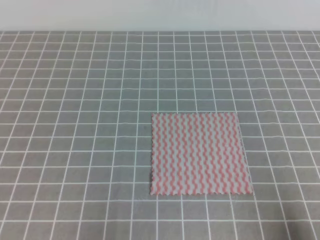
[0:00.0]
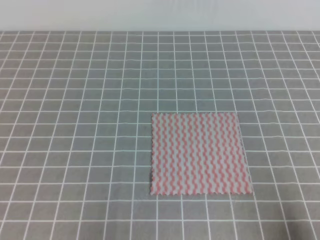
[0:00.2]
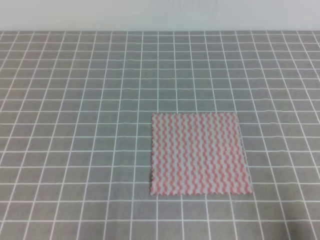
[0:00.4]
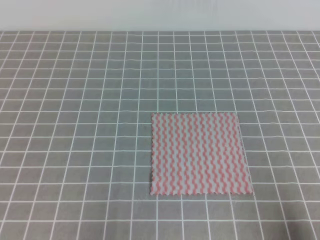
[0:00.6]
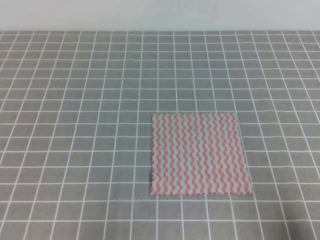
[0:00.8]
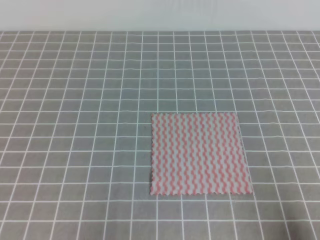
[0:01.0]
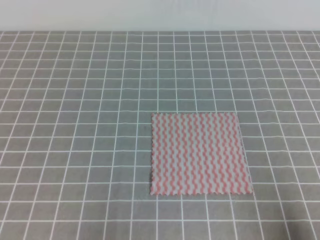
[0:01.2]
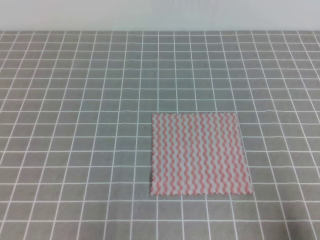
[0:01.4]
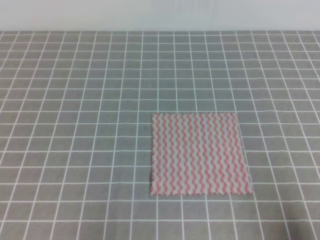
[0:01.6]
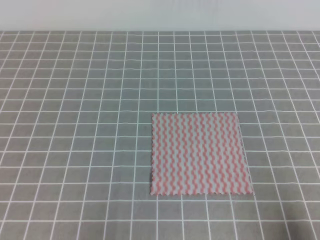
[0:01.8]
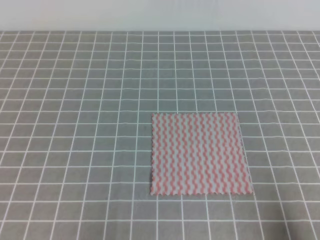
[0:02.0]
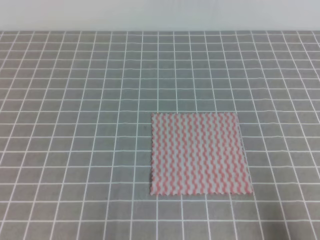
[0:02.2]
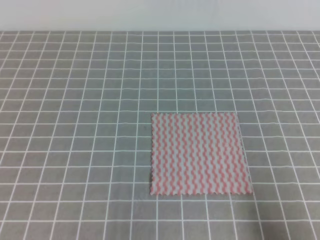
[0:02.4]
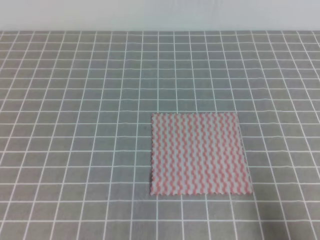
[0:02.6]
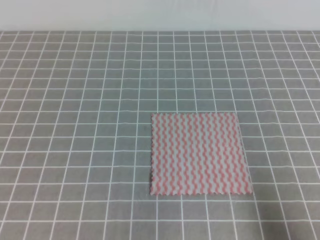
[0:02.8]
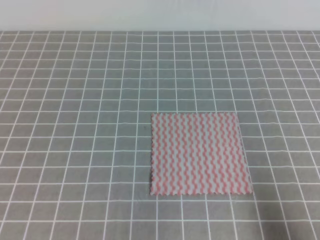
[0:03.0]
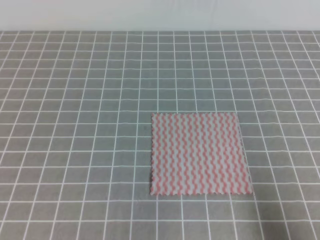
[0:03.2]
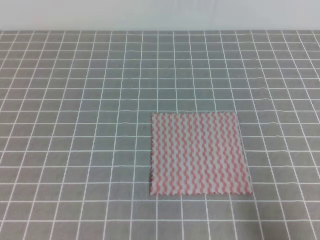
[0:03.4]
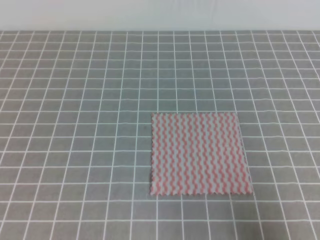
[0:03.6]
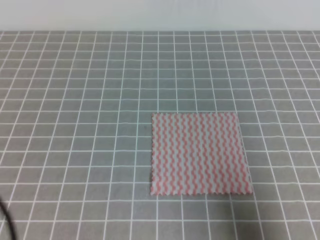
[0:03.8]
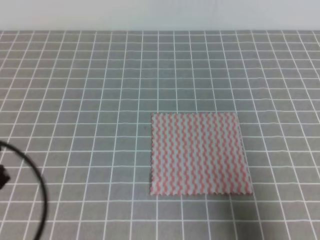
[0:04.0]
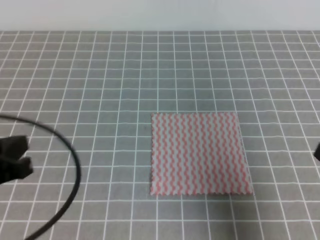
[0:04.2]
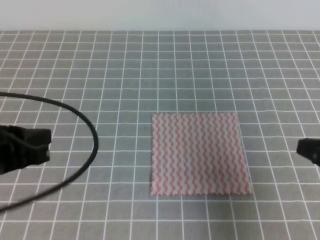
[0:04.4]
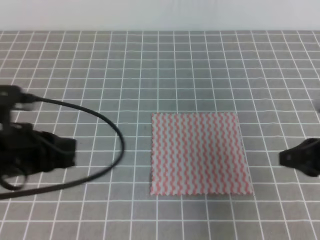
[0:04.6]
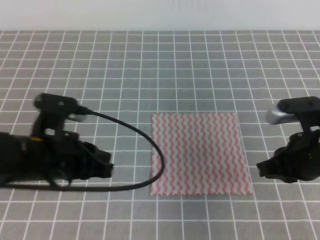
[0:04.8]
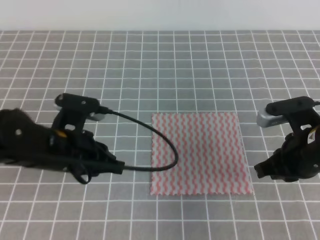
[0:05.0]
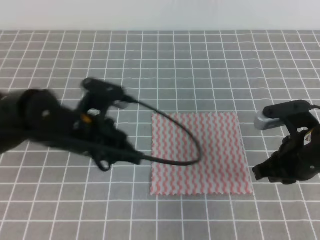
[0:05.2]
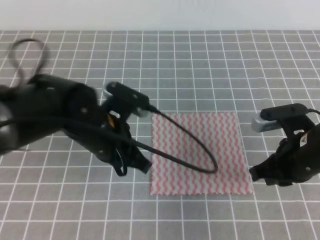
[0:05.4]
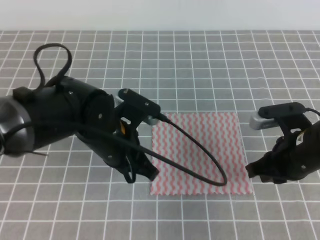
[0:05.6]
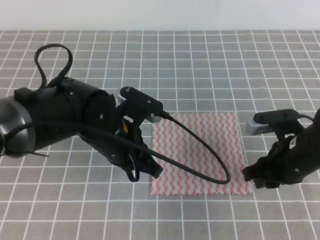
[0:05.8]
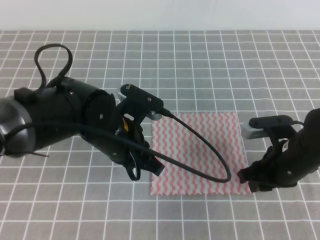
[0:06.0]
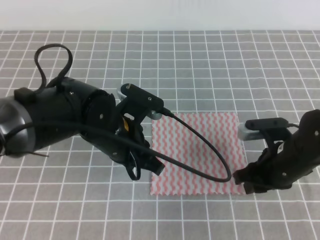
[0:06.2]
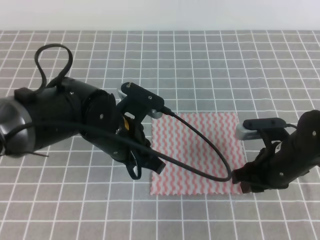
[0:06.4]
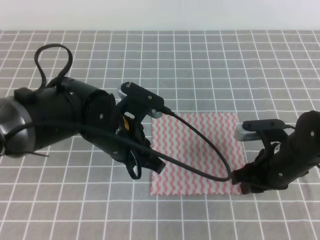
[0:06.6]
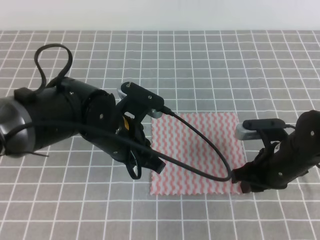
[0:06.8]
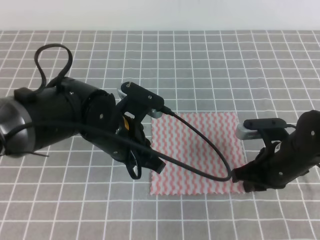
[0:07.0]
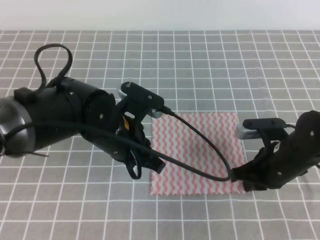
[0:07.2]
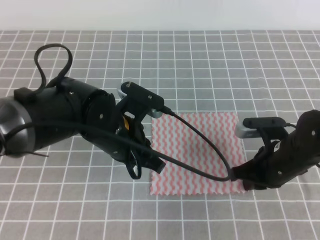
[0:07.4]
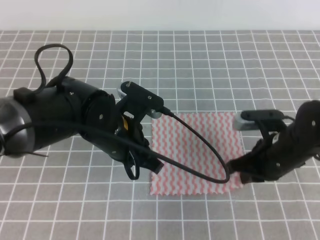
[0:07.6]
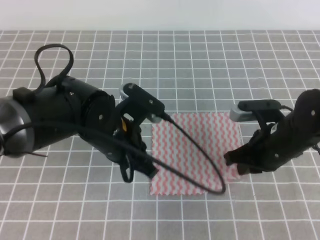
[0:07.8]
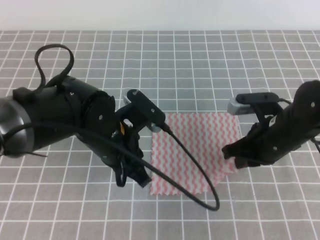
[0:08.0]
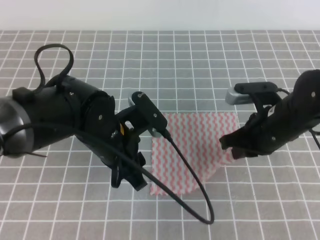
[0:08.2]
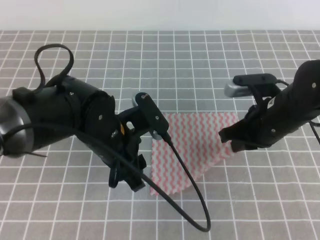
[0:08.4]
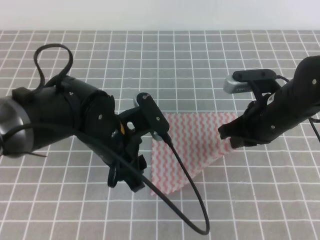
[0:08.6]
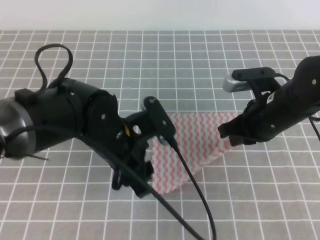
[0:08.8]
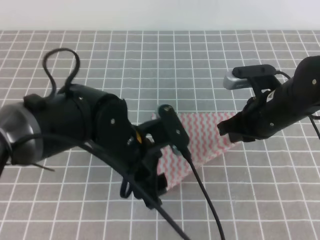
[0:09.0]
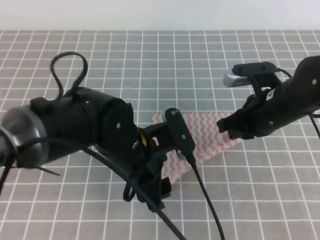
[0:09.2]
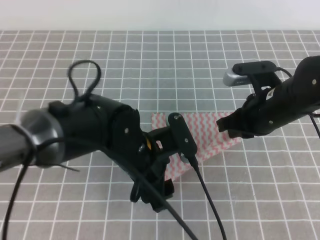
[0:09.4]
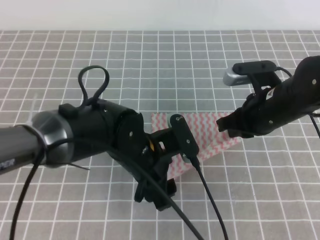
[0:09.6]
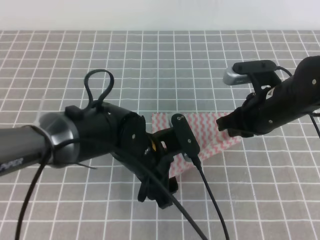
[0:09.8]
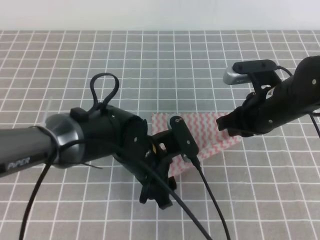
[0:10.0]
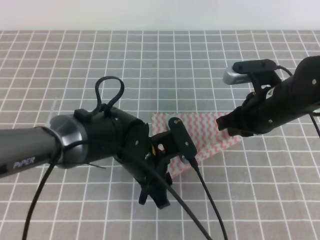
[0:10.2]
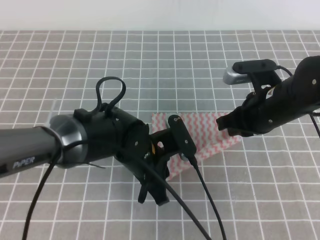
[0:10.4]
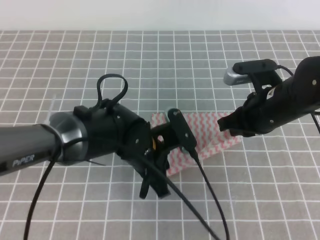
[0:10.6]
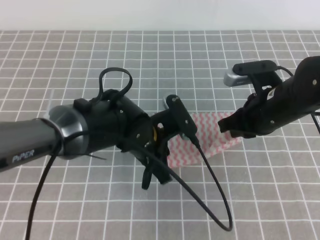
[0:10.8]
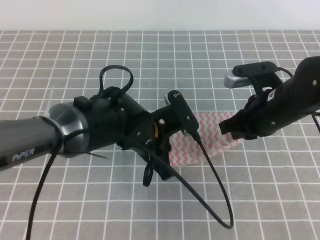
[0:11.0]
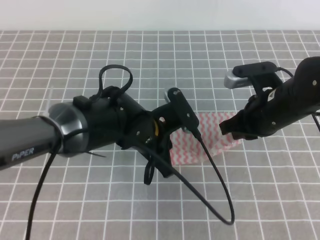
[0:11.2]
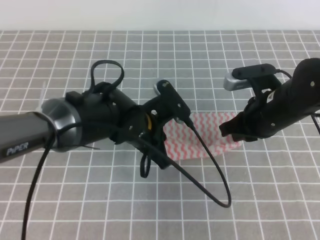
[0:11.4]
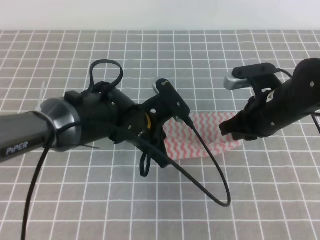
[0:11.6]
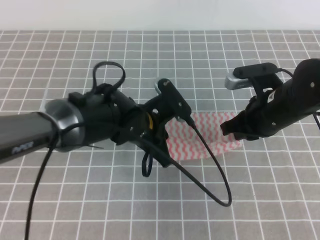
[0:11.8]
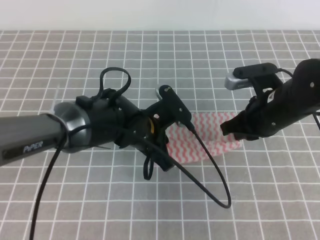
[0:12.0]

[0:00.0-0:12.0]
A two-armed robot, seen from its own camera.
0:00.0 to 0:01.6: Both grippers stay about where they are.
0:03.0 to 0:04.4: The two grippers go roughly 15 cm forward and upward.
0:04.4 to 0:06.0: The left gripper heads to the right and forward, covering approximately 20 cm. Meanwhile the right gripper moves forward, downward and to the left, about 15 cm, and opens.
0:06.0 to 0:07.6: The right gripper closes its fingers.
0:07.6 to 0:09.0: The right gripper moves upward, about 5 cm. The left gripper opens up.
0:09.0 to 0:10.4: The left gripper changes place by roughly 5 cm, and closes its fingers.
0:10.4 to 0:12.0: There are only small adjustments of the grippers.

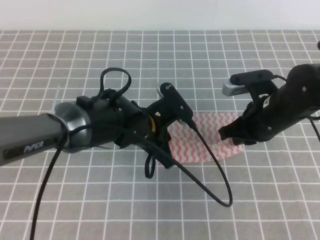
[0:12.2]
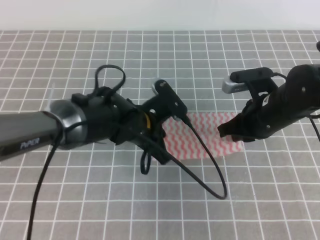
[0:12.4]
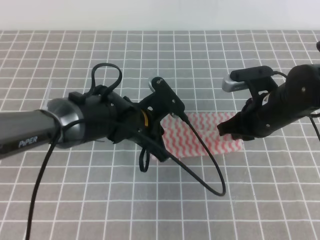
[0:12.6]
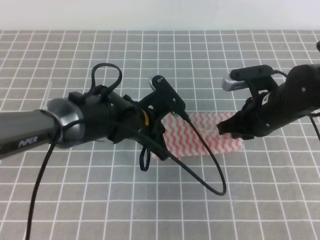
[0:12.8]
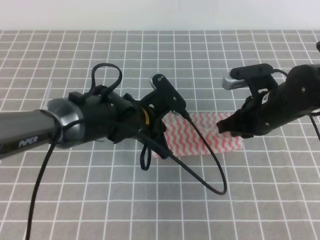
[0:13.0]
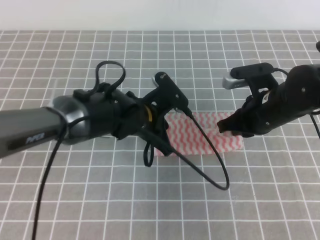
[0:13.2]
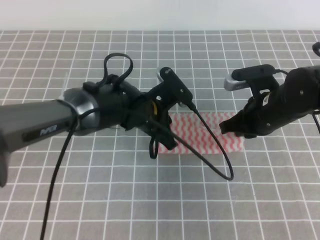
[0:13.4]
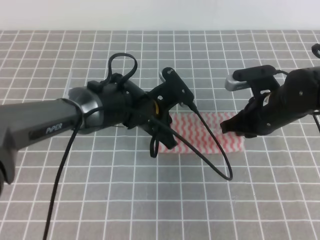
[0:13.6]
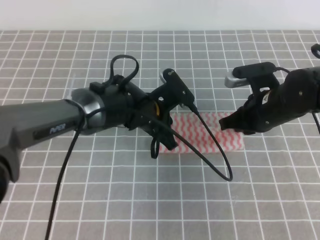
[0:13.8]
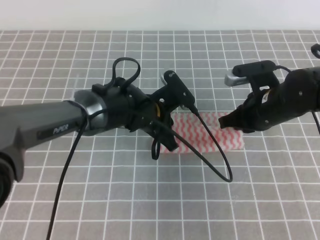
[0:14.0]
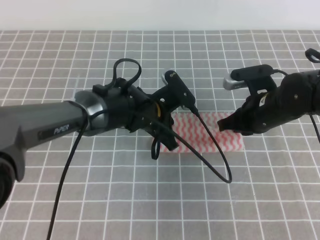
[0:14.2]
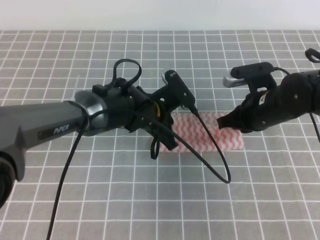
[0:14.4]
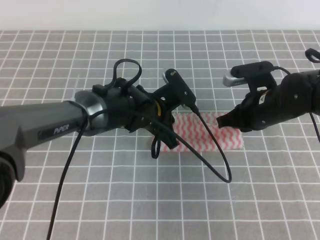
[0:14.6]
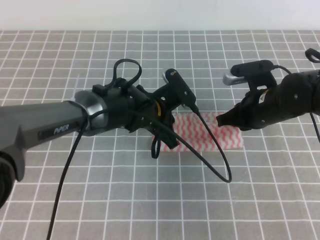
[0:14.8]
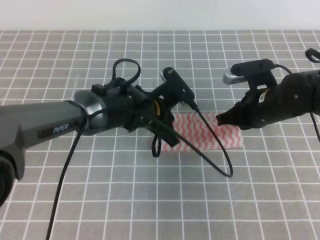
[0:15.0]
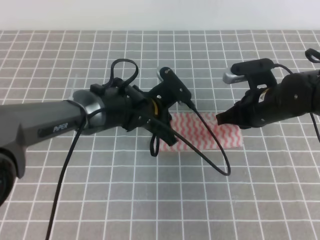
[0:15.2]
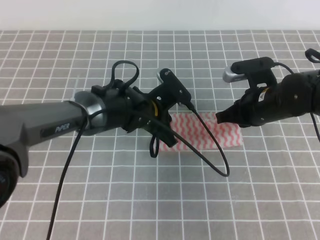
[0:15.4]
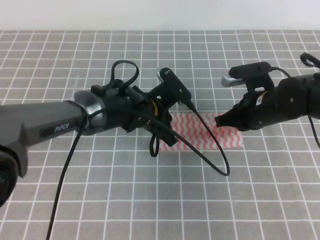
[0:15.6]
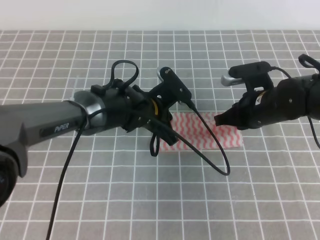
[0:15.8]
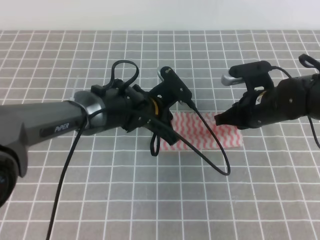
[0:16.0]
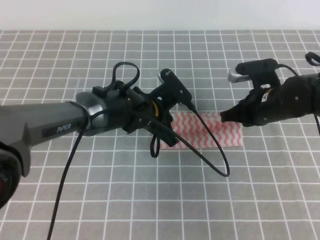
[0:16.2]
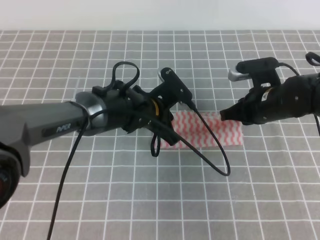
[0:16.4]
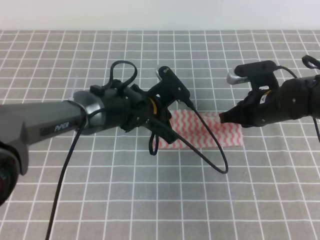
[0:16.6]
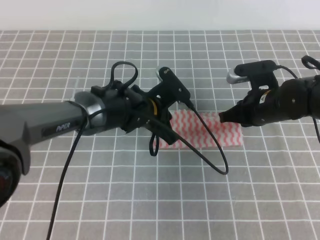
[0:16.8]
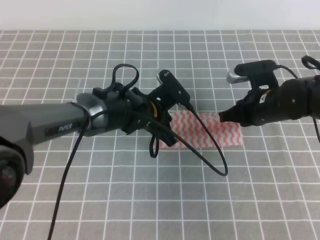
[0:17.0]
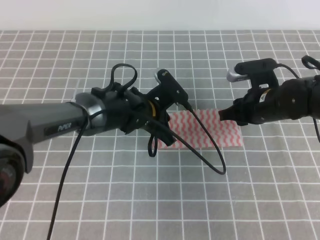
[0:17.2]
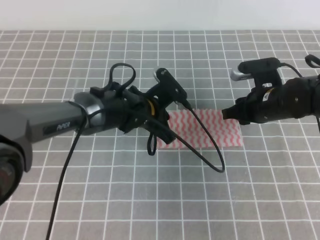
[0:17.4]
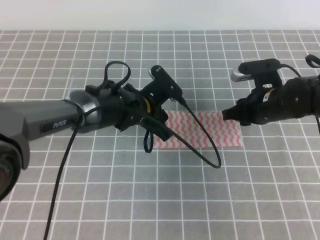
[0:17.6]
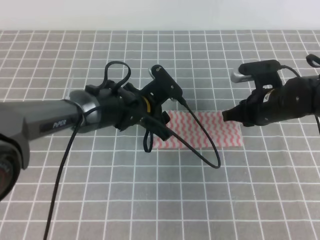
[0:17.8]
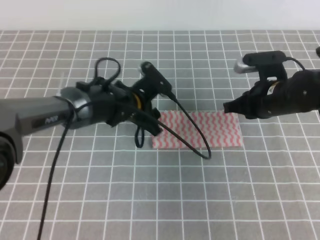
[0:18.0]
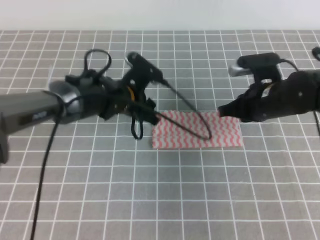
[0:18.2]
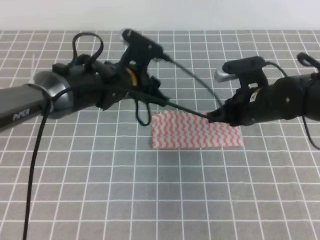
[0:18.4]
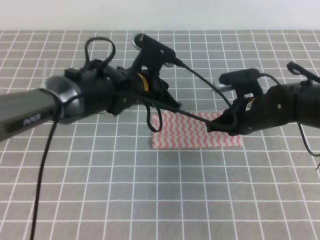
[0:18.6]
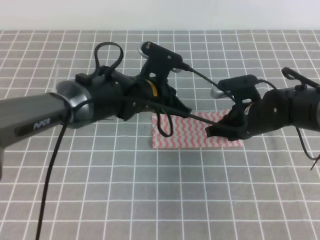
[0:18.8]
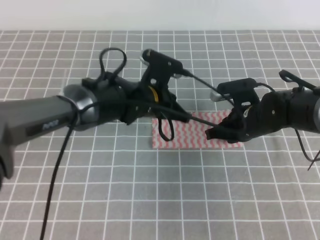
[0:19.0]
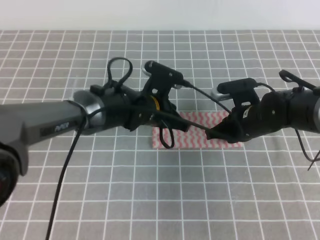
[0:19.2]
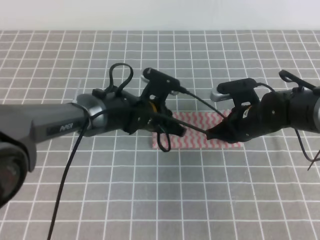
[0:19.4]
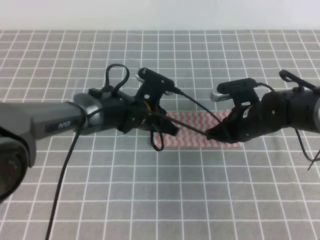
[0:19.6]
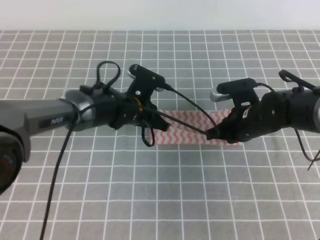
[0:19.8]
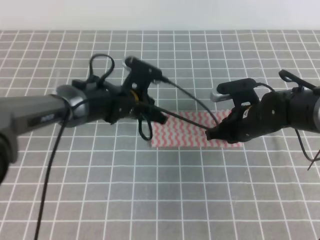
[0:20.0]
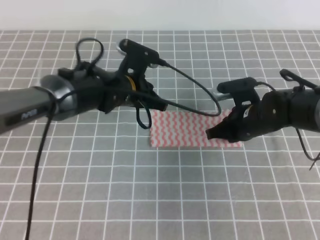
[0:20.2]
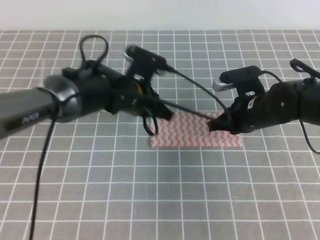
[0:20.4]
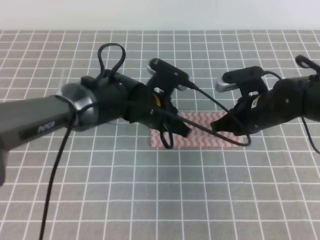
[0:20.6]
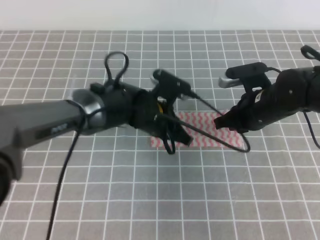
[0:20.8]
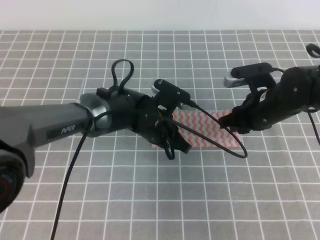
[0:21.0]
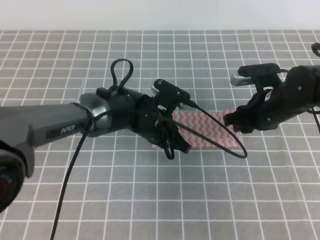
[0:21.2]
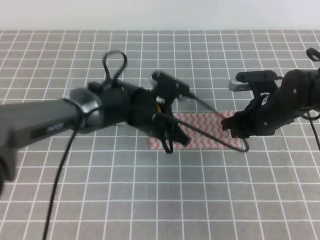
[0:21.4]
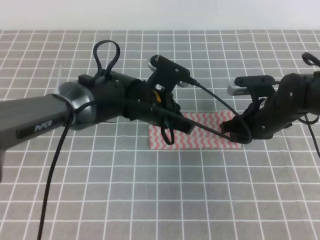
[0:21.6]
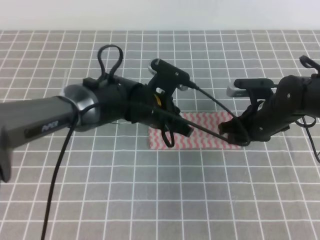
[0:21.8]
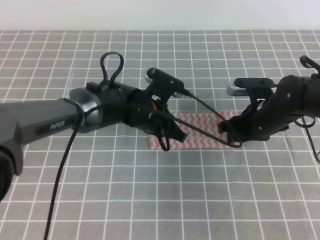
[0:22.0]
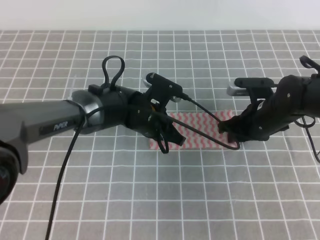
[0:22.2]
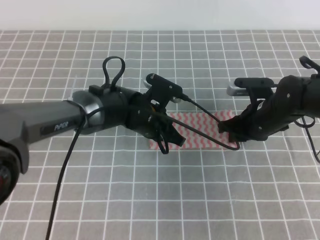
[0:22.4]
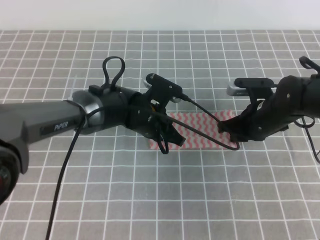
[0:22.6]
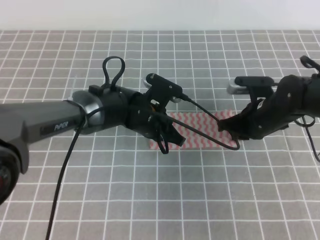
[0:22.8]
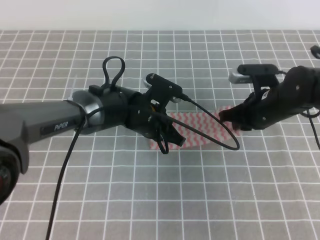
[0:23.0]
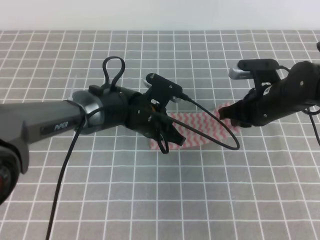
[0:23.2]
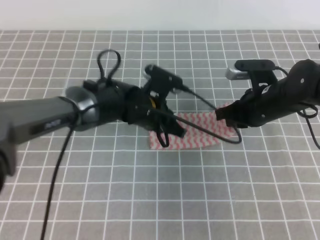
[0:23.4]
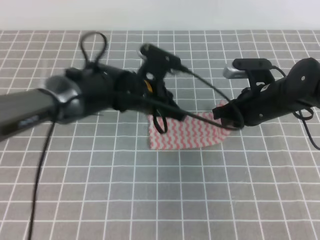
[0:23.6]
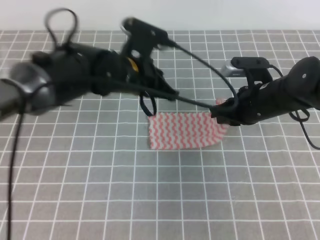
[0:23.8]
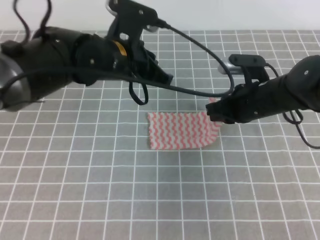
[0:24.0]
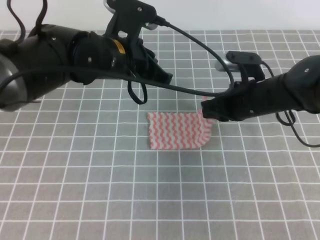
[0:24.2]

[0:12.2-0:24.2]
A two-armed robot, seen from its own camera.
0:12.2 to 0:16.6: There are only small adjustments of the grippers.
0:16.6 to 0:18.2: The right gripper opens and closes again. The left gripper opens its fingers.
0:18.2 to 0:19.8: The left gripper closes its fingers, while the right gripper heads downward, covering roughly 5 cm.
0:19.8 to 0:21.2: The right gripper opens its fingers; the left gripper shifts by about 5 cm.
0:21.2 to 0:22.6: The right gripper closes its fingers.
0:22.6 to 0:24.2: The right gripper is displaced upward by about 5 cm; the left gripper shifts roughly 15 cm upward.
